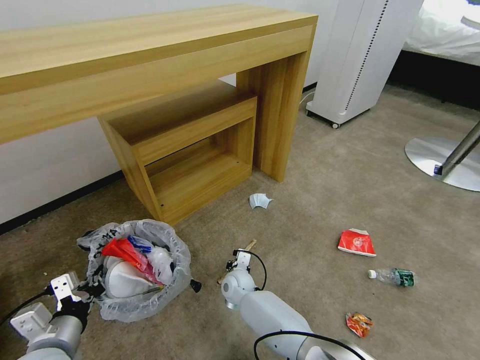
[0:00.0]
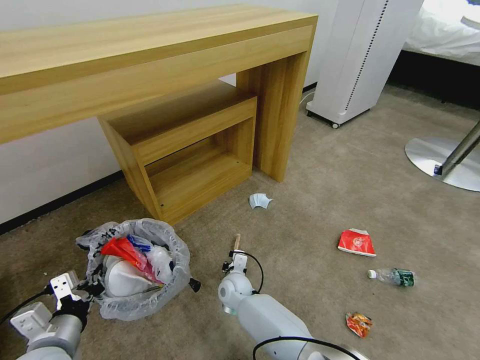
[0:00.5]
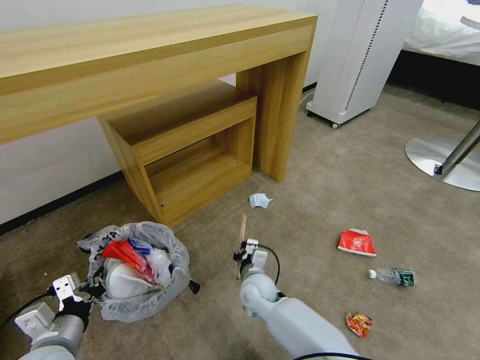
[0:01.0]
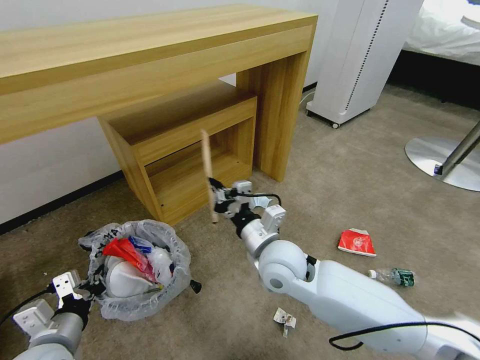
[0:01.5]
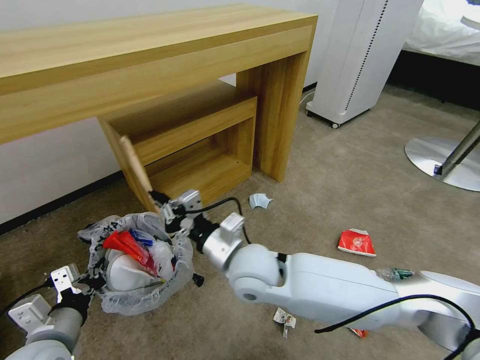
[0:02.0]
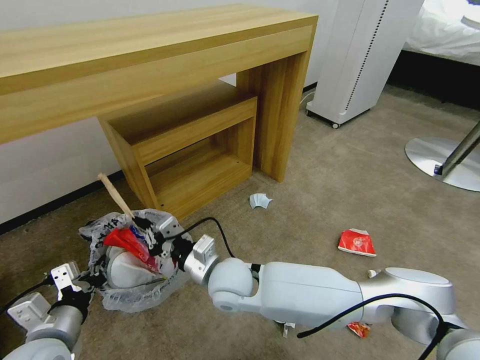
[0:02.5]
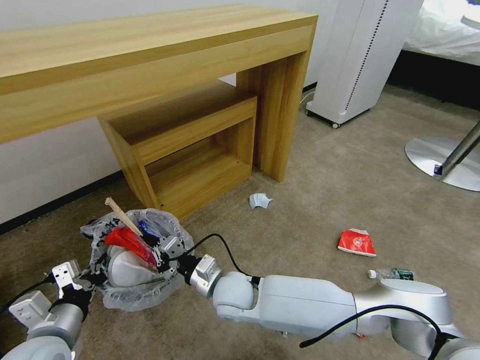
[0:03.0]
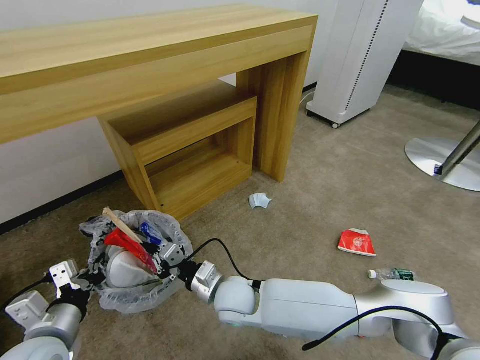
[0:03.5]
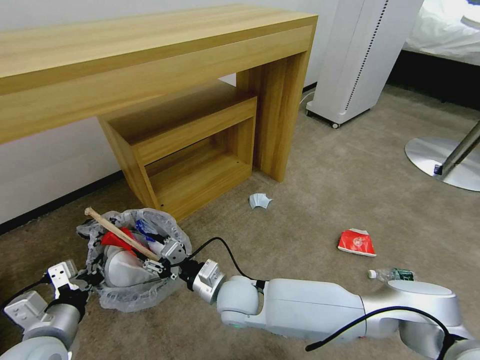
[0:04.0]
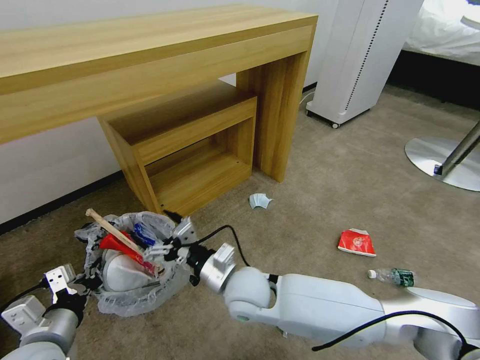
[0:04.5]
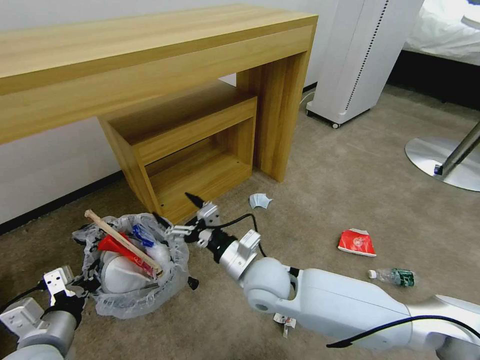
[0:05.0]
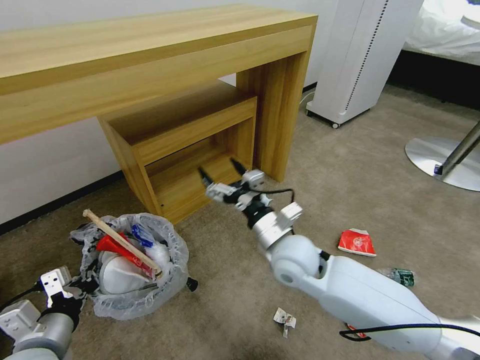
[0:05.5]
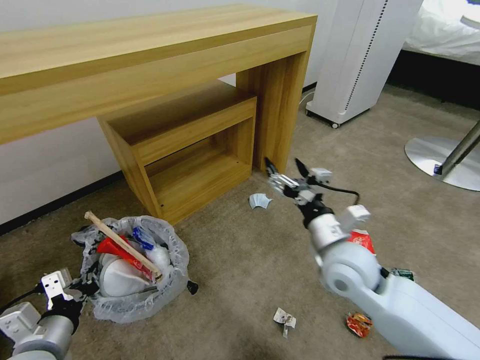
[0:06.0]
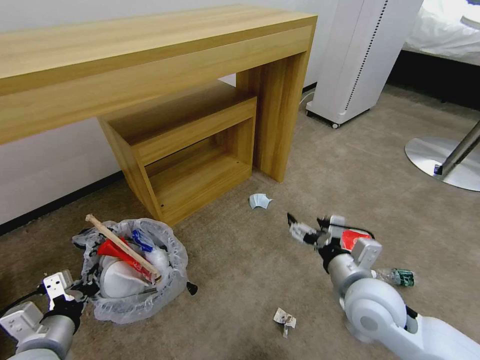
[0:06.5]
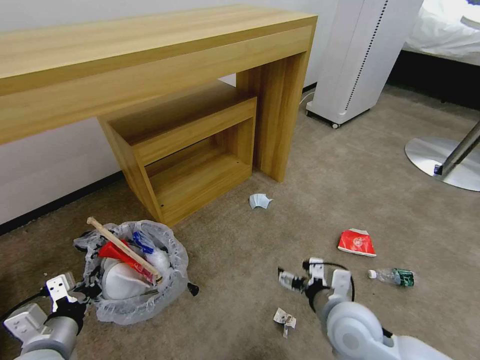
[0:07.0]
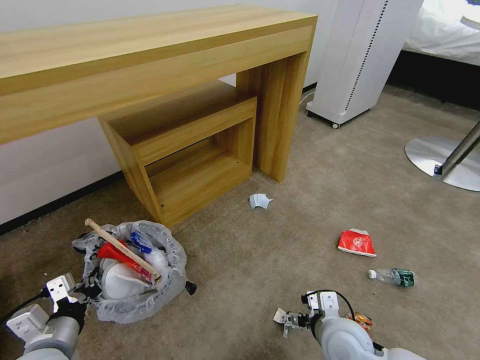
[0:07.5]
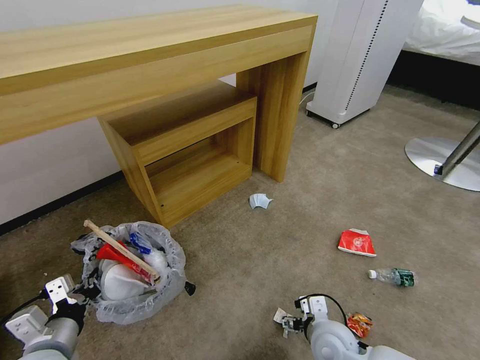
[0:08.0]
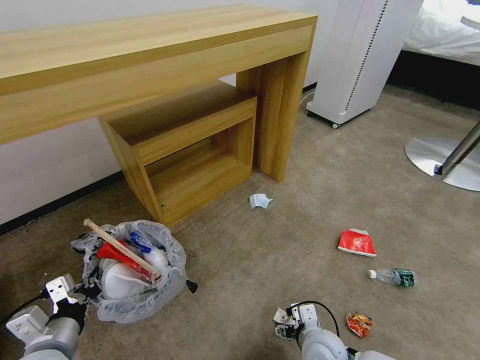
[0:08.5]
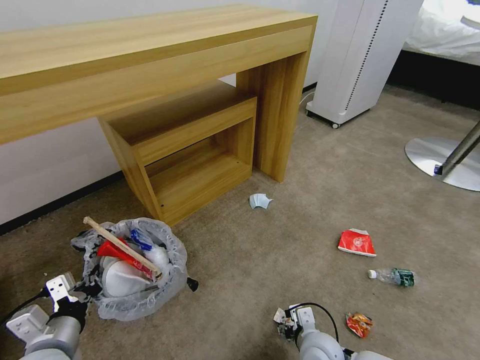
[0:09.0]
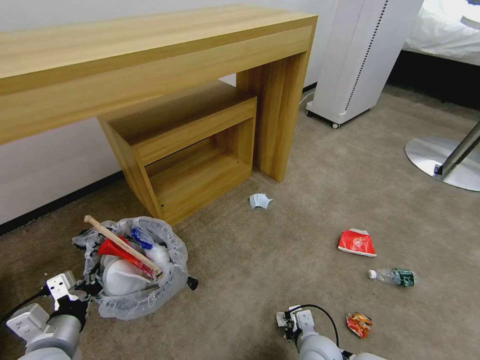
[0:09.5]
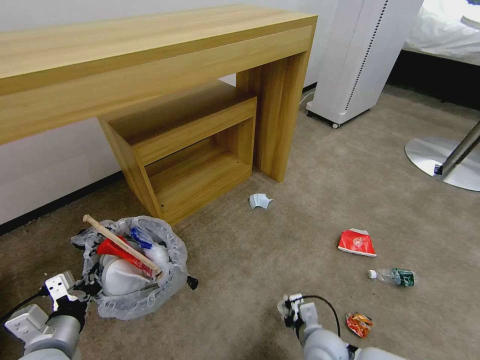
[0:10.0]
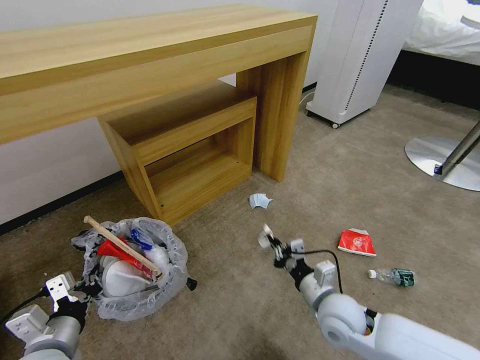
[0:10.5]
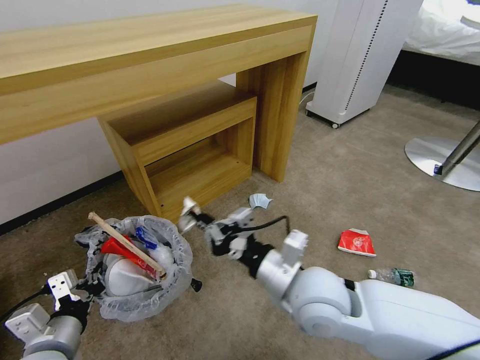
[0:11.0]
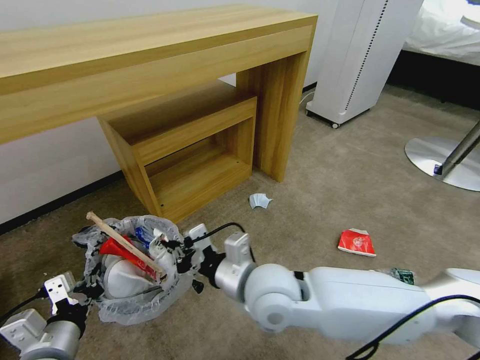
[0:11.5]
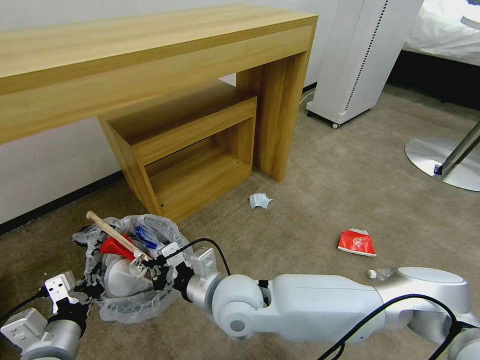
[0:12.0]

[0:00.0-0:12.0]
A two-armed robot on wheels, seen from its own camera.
Task of the whole recording: Pick up the trash bin and place the garbage on the floor into it.
0.0 to 2.0 s: The right gripper travels upward by approximately 25 cm.
2.0 to 4.0 s: The right gripper moves downward, about 10 cm, and opens its fingers.
4.0 to 6.0 s: The right gripper moves to the right and upward, some 25 cm, and opens up.
6.0 to 8.0 s: The right gripper goes some 20 cm downward and backward.
8.0 to 10.0 s: The right gripper closes its fingers.
10.0 to 12.0 s: The right gripper goes approximately 30 cm to the left and upward.

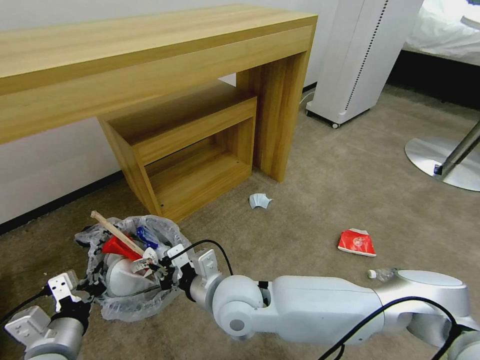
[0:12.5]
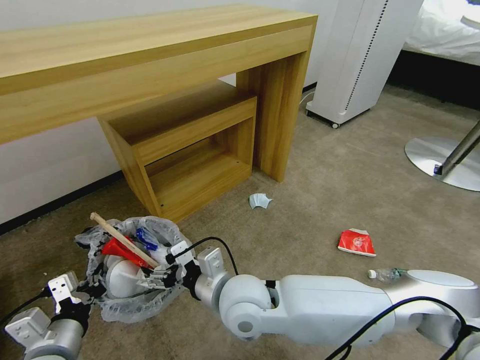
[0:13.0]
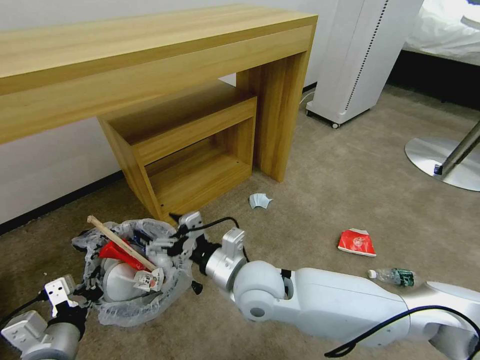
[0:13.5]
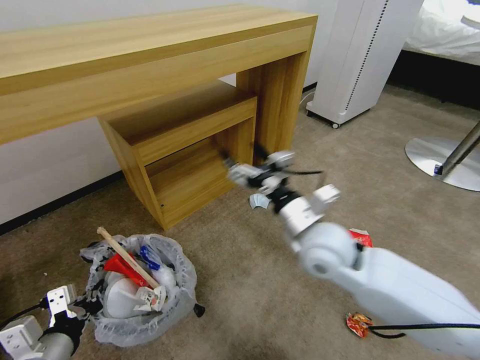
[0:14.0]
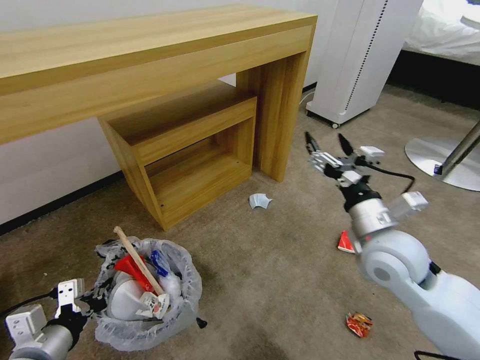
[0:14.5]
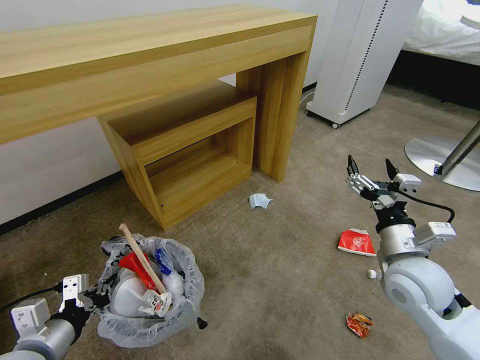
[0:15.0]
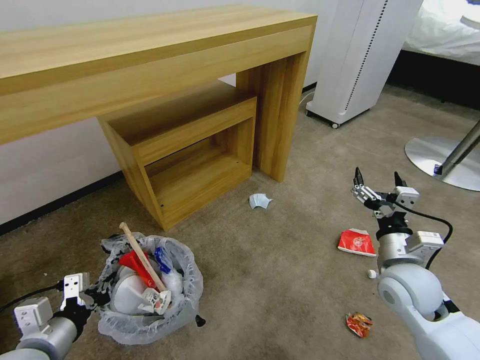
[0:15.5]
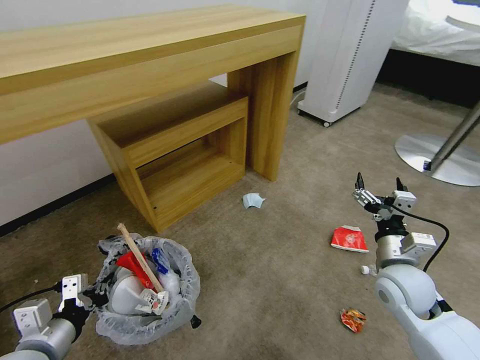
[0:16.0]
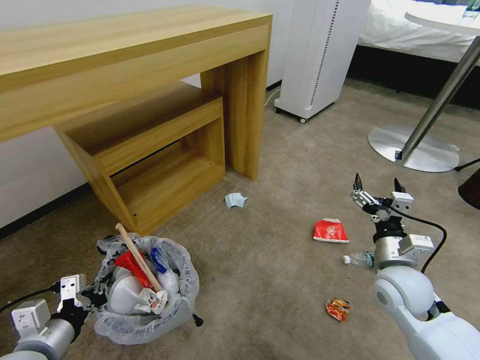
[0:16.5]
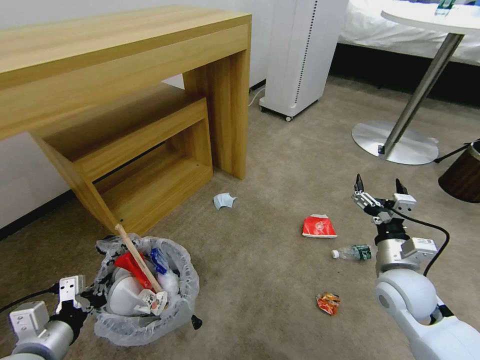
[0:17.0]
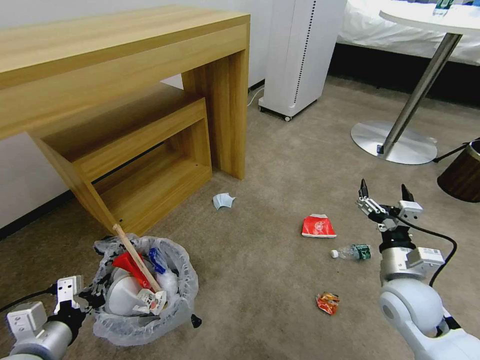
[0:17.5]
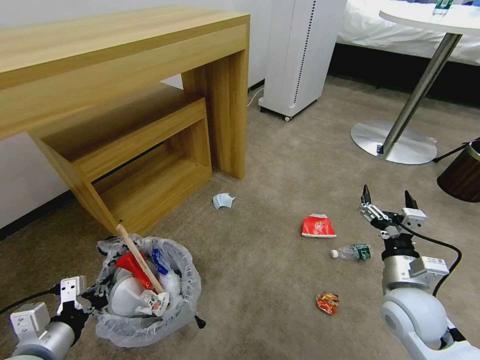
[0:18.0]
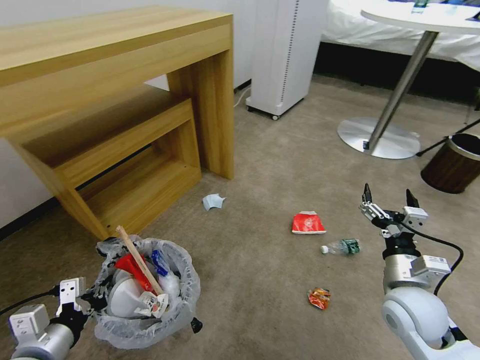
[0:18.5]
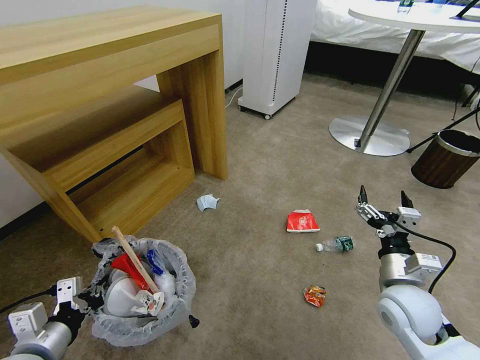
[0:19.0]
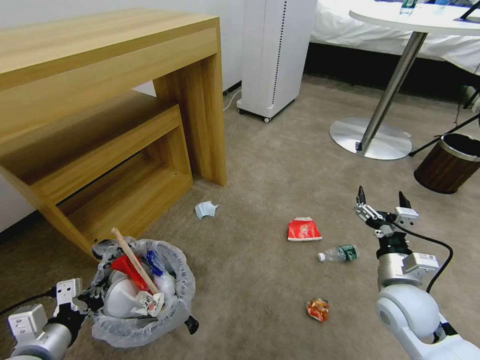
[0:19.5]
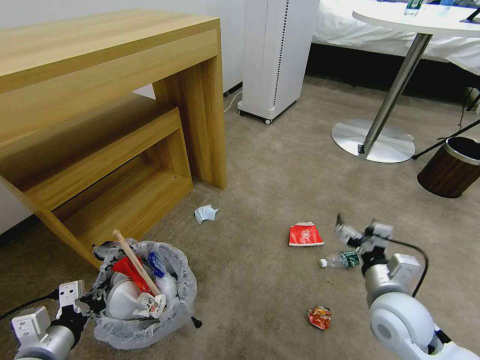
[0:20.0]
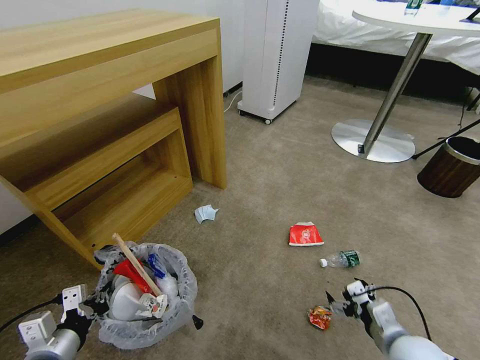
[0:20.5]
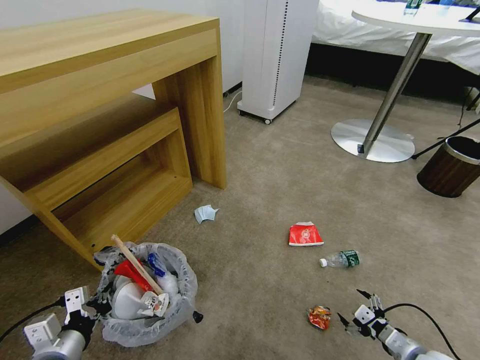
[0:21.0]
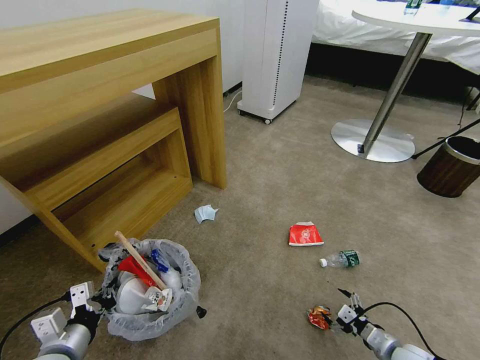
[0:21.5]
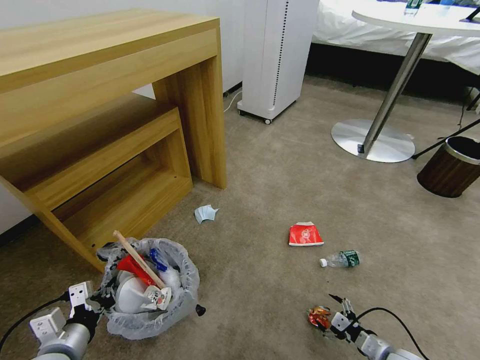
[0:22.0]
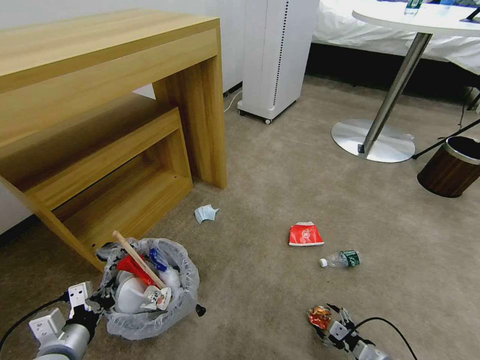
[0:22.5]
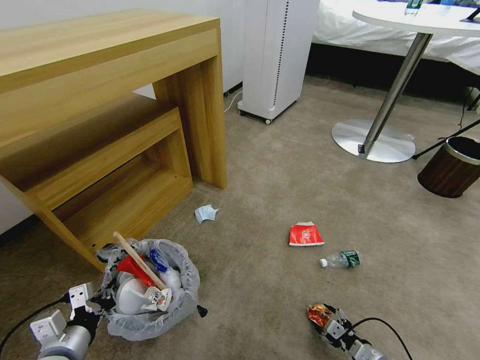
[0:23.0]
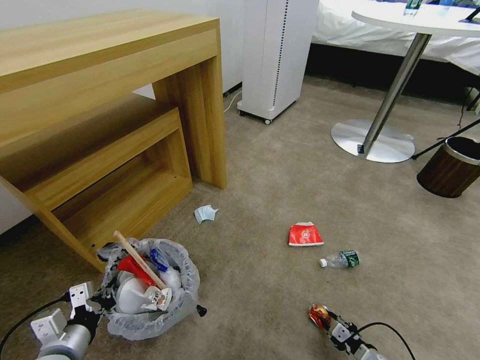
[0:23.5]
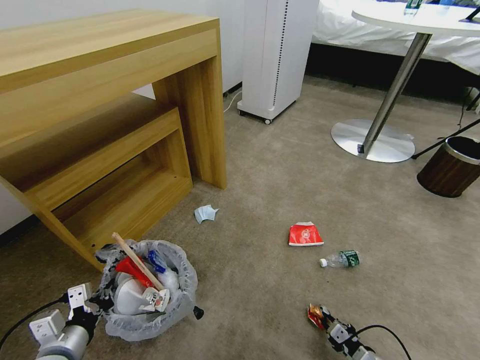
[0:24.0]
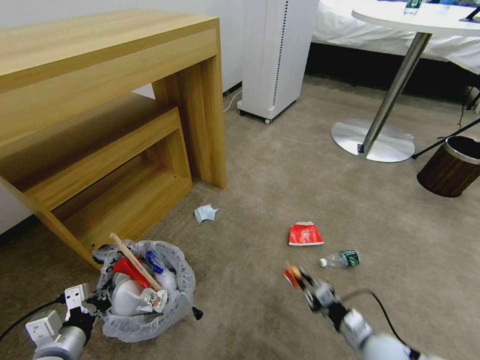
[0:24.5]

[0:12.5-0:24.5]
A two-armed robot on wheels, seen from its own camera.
Task of the whole recording: Pick up the trash bin and place the garbage on the floor into it.
12.5 to 14.5 s: The right gripper goes roughly 25 cm to the right, and opens.
14.5 to 16.5 s: The right gripper shifts approximately 10 cm downward and to the right.
18.5 to 20.5 s: The right gripper moves backward and downward, about 10 cm.
20.5 to 22.5 s: The right gripper is displaced downward by about 15 cm.
22.5 to 24.5 s: The right gripper is displaced upward and to the left by about 10 cm, and closes up.

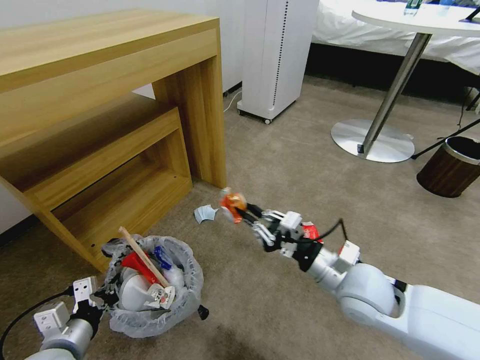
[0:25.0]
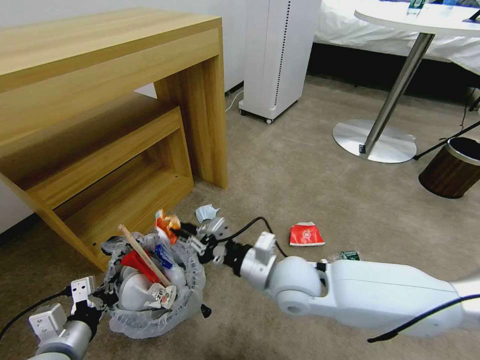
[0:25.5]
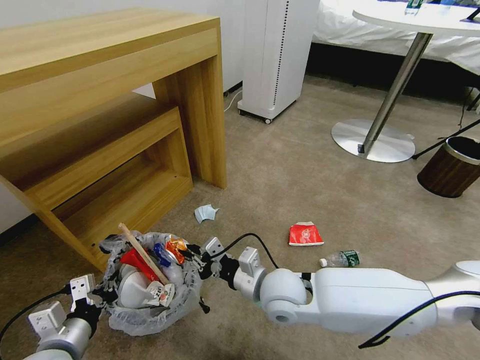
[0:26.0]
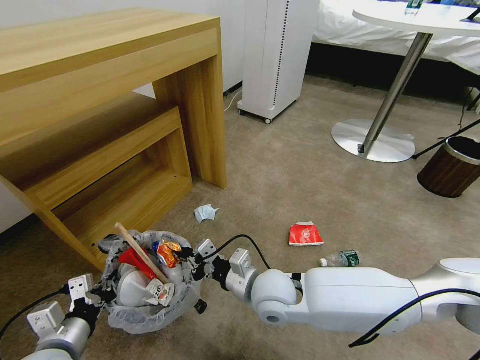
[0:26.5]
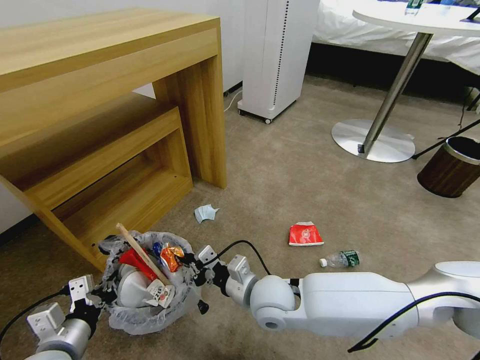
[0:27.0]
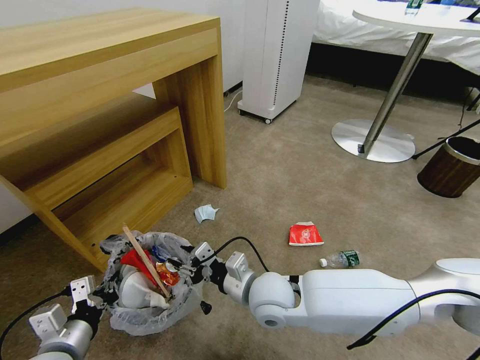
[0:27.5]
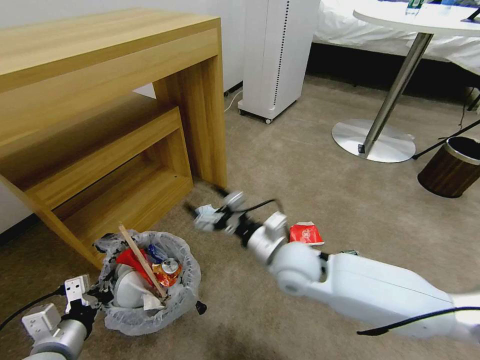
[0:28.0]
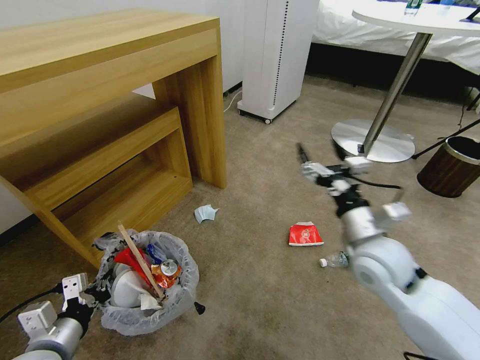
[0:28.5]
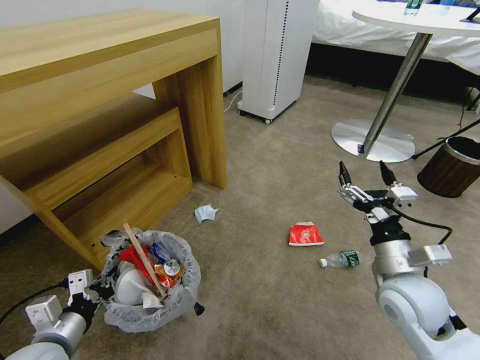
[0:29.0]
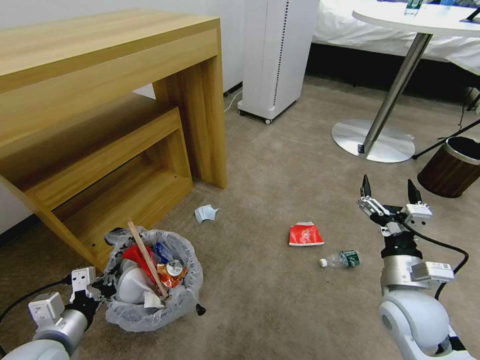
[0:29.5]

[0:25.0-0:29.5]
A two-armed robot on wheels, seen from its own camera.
Task of the whole recording: Pick up the trash bin and place the garbage on the floor into it.
25.0 to 27.0 s: The right gripper is displaced to the left and downward by some 15 cm.
27.0 to 29.5 s: The right gripper goes about 25 cm to the right, and opens up.
